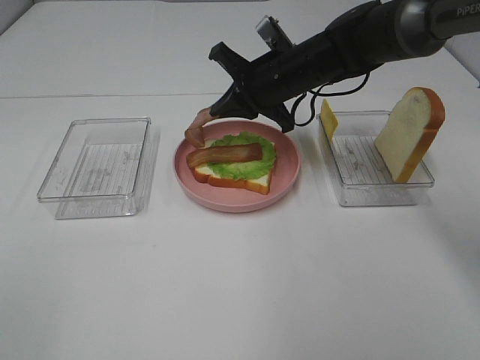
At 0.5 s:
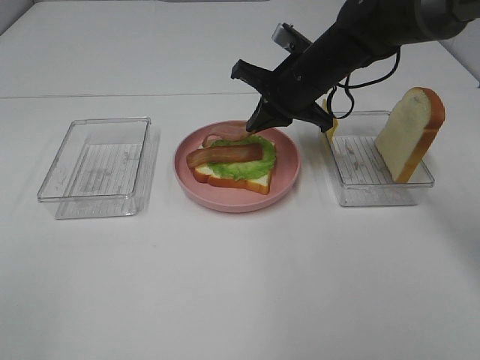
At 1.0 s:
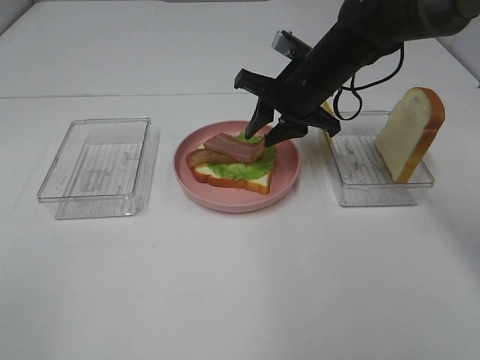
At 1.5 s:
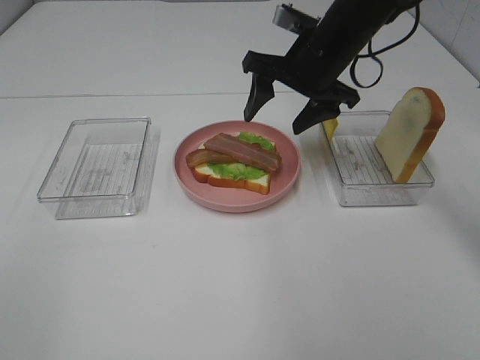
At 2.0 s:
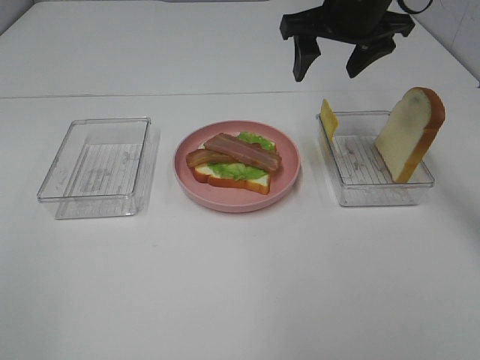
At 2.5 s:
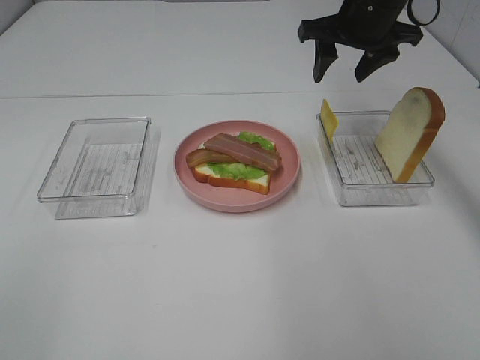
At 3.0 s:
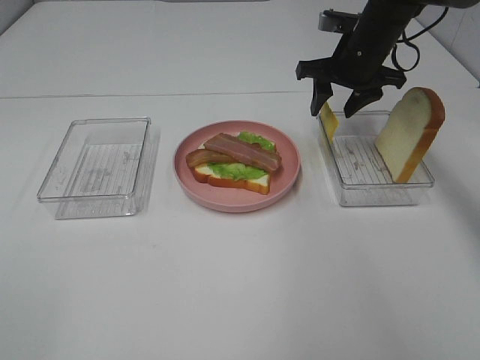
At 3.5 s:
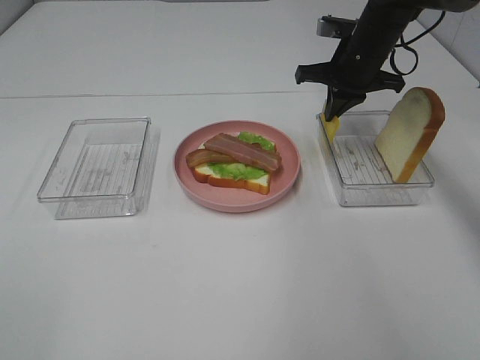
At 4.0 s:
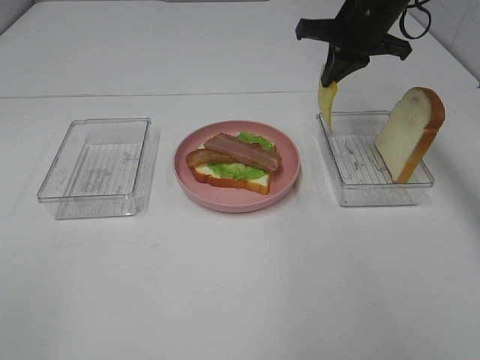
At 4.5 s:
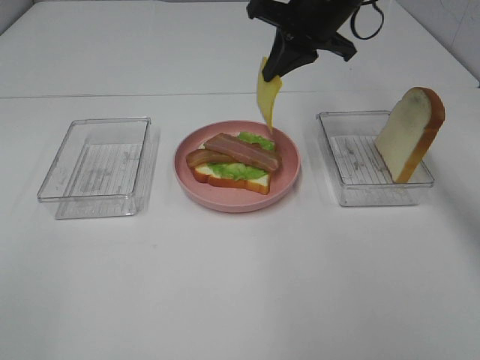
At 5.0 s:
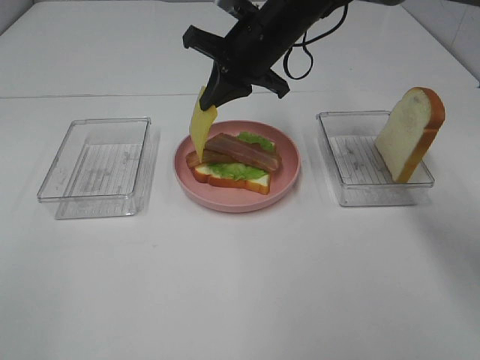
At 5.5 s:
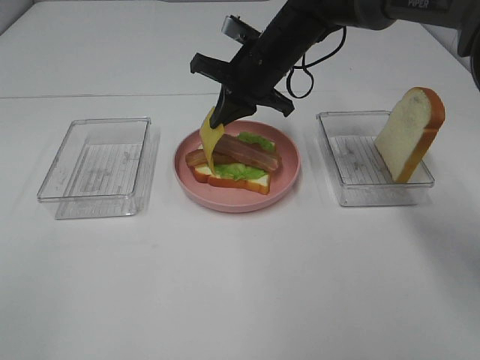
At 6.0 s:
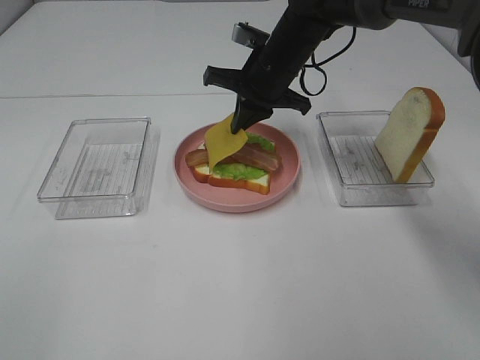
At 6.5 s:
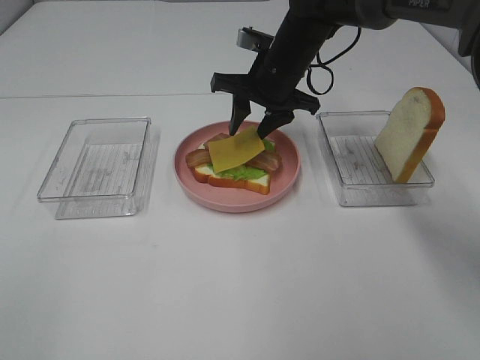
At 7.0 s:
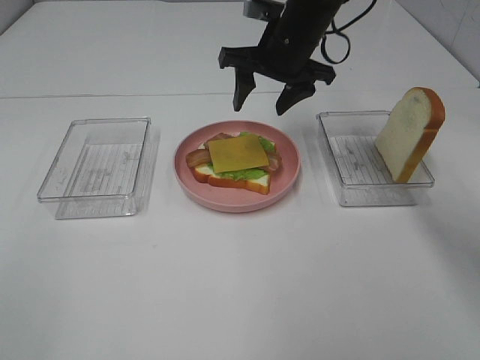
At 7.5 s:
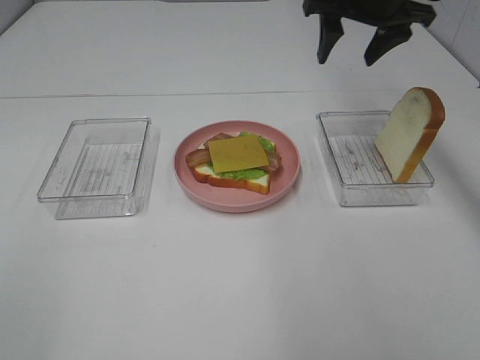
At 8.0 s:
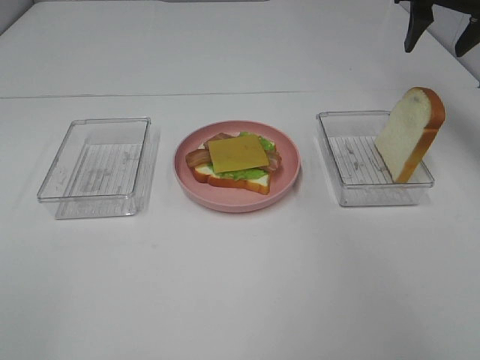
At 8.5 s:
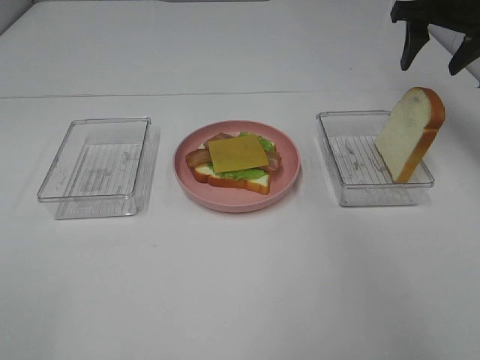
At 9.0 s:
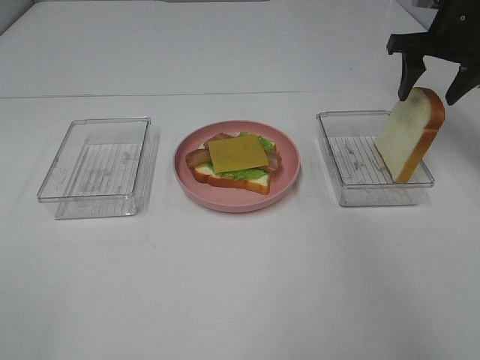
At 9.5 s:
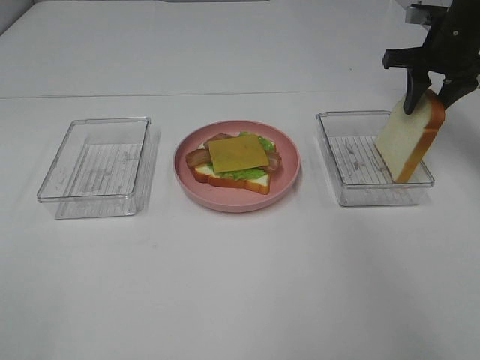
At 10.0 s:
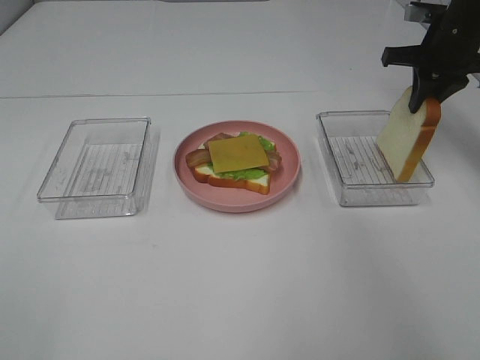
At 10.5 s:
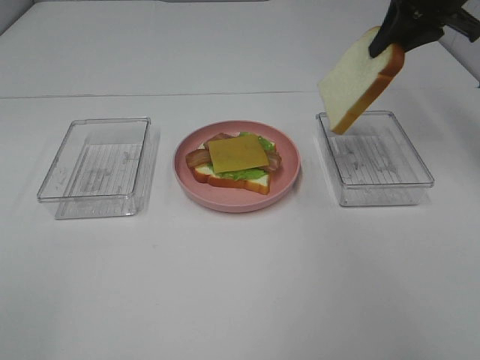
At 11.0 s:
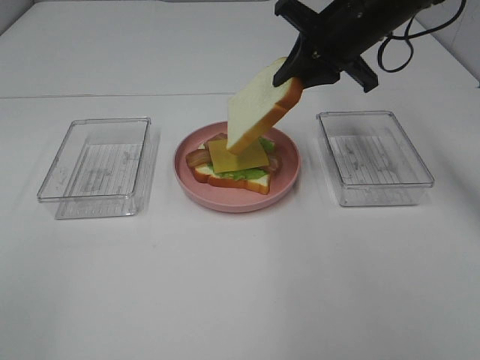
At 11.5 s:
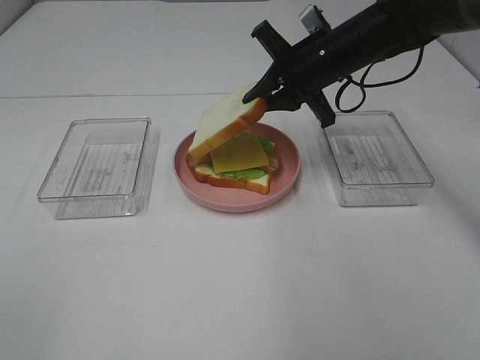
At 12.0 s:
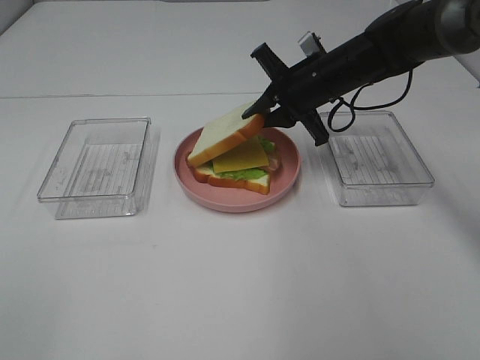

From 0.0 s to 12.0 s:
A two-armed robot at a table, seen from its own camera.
Task of the whole recording: Make sandwiches.
Step, from 1.5 s to 3.5 s: Right hand:grab the cheese slice.
Step, from 4.0 s to 6.5 s: Right hand:place the cheese slice on top of the bacon.
Step, from 7.0 s to 9.5 s: Right hand:grab the bread slice.
From 0.0 s to 2.0 s: The right gripper travels upward and to the right by some 15 cm, and opens its fingers.
From 2.0 s to 4.0 s: The right gripper moves about 10 cm downward and comes back, and closes.
From 4.0 s to 6.0 s: The right gripper shifts roughly 15 cm to the left and downward.
From 6.0 s to 8.0 s: The right gripper heads to the right and upward, covering about 25 cm, and opens.
From 8.0 s to 10.0 s: The right gripper shifts roughly 10 cm downward, and closes up.
From 10.0 s to 12.0 s: The right gripper is displaced to the left and downward by roughly 15 cm.

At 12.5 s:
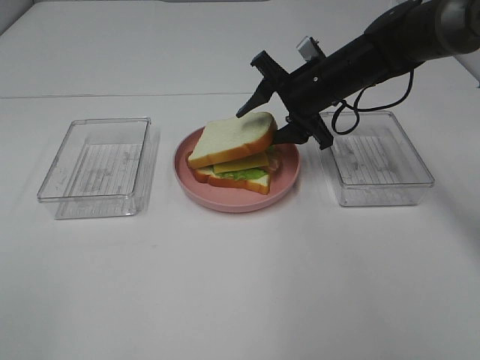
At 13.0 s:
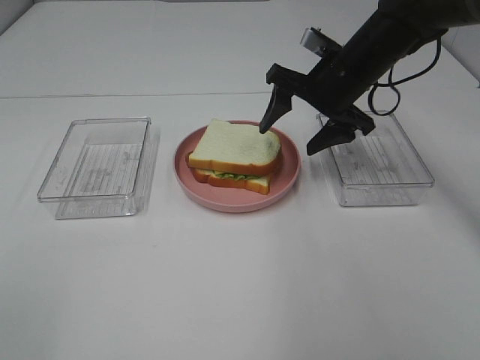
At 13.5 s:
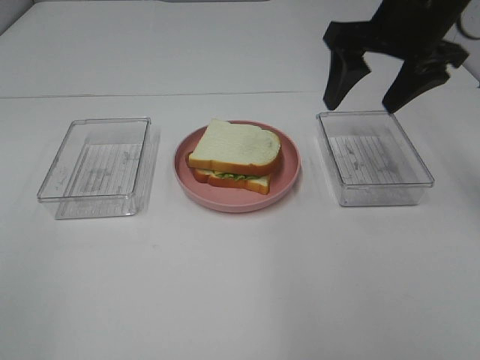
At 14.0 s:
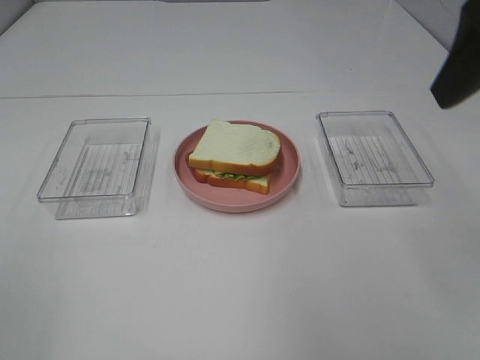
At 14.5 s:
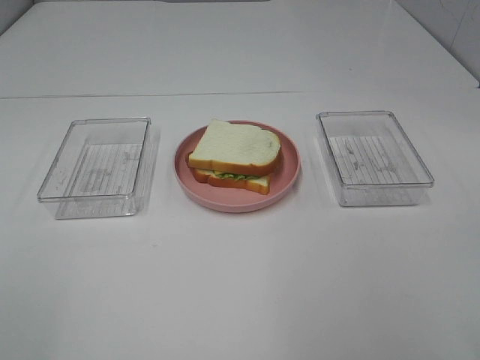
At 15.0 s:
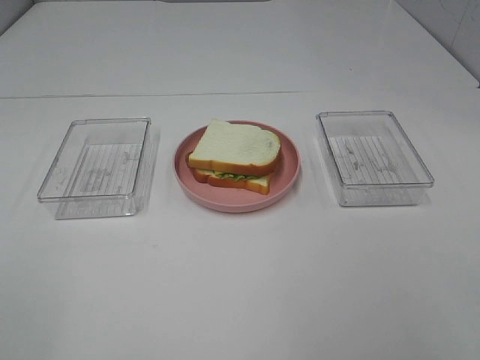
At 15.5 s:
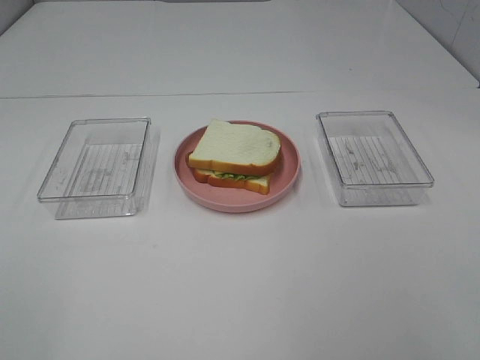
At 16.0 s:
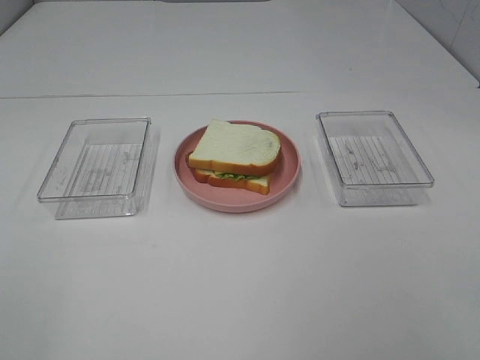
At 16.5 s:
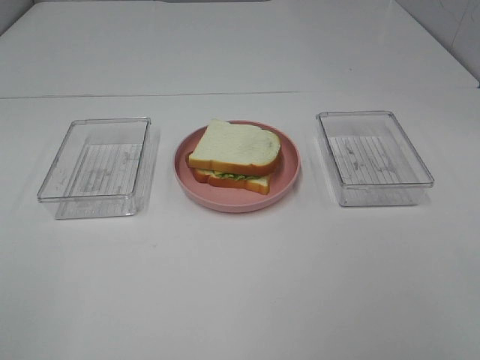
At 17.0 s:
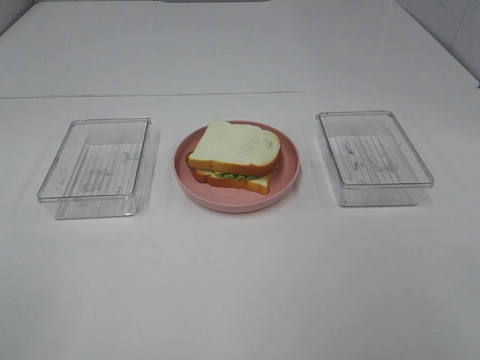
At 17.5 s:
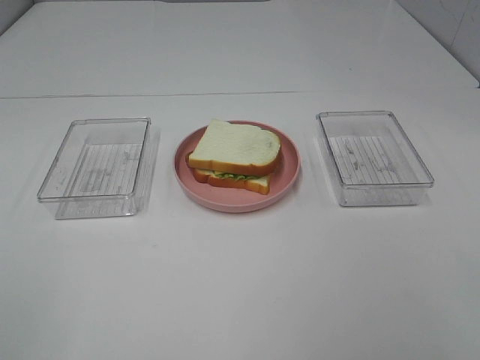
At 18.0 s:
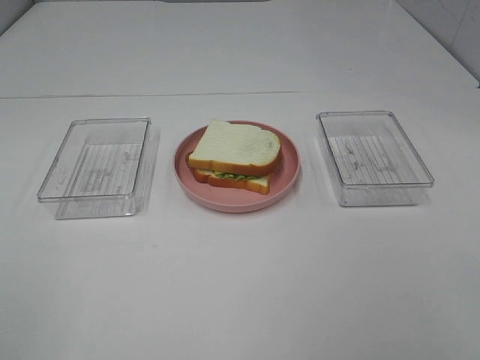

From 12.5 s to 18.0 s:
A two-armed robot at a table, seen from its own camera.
Task of the whole recording: Make sandwiches.
From 12.5 s to 14.5 s: The right gripper travels backward and upward by about 40 cm.
